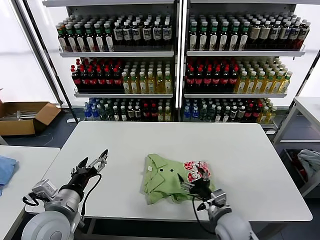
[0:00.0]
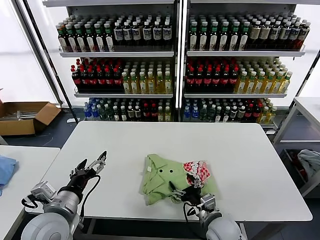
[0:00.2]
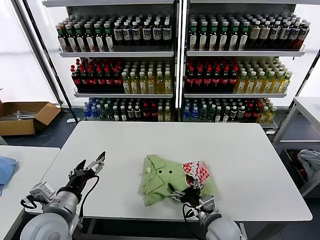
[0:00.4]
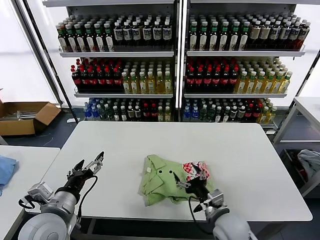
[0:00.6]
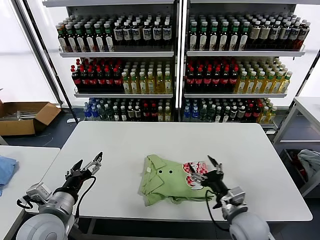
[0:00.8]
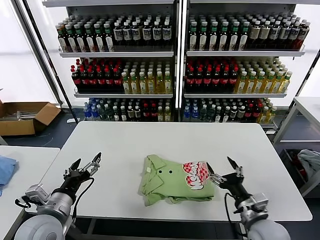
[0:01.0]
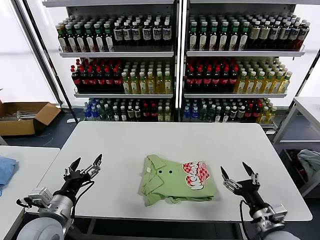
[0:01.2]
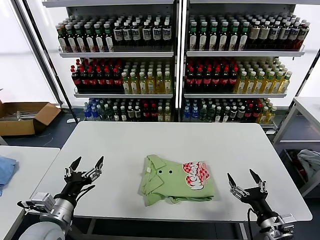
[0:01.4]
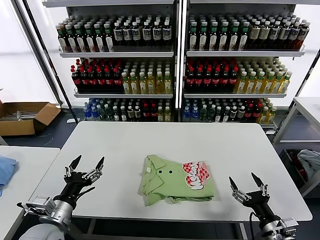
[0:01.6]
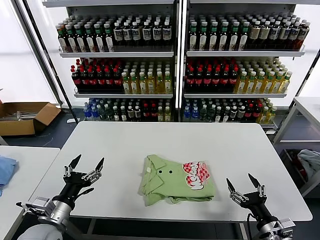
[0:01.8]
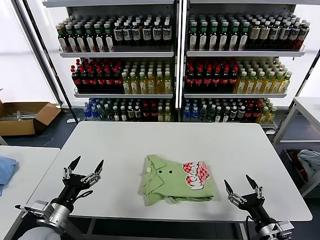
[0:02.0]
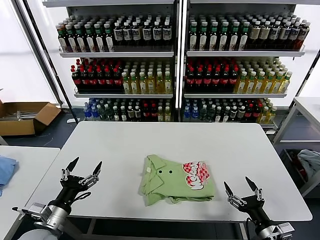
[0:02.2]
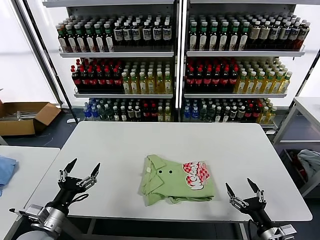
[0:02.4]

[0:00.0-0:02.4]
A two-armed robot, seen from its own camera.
Task of the whole recording: fold and organize the clothes.
0:00.0 to 0:01.2: The right gripper moves to the right and backward, approximately 10 cm.
0:01.2 to 0:02.4: The right gripper travels backward by some 5 cm; the left gripper moves about 5 cm.
